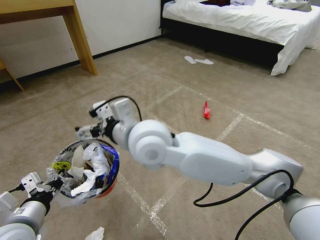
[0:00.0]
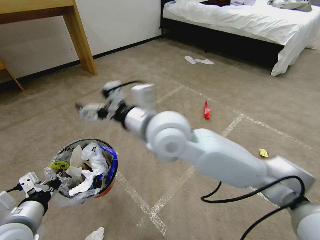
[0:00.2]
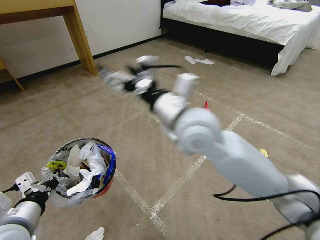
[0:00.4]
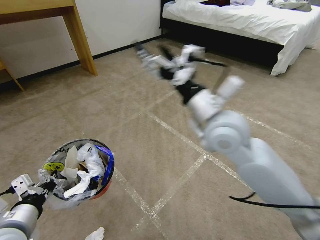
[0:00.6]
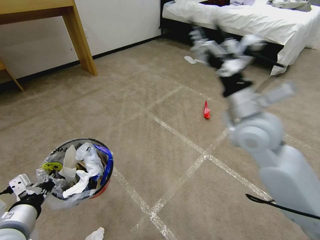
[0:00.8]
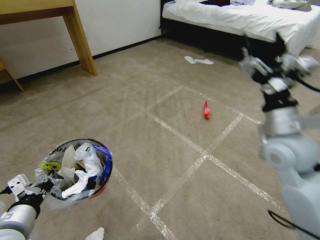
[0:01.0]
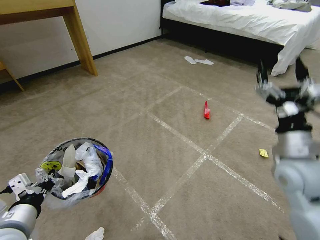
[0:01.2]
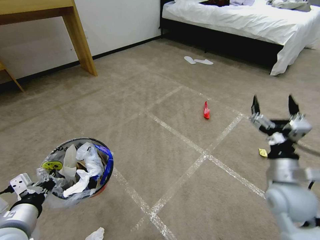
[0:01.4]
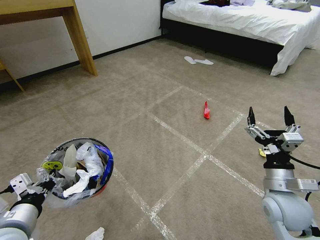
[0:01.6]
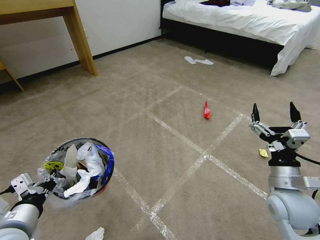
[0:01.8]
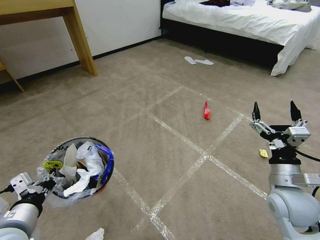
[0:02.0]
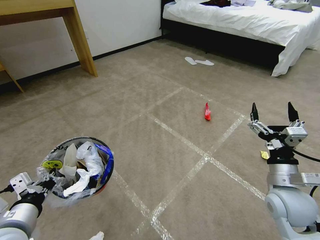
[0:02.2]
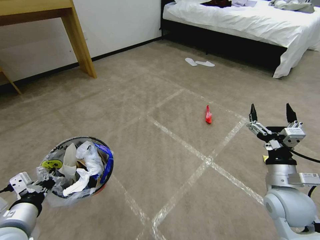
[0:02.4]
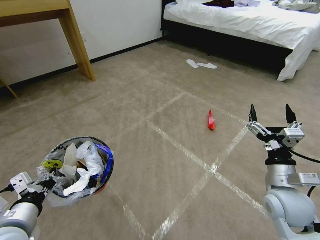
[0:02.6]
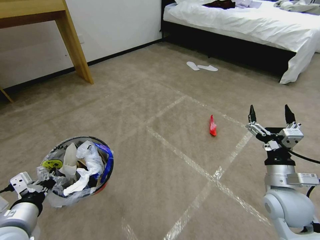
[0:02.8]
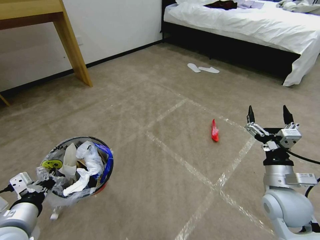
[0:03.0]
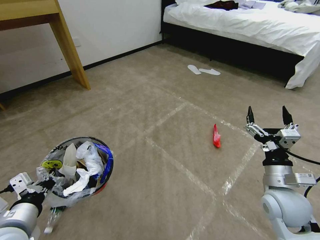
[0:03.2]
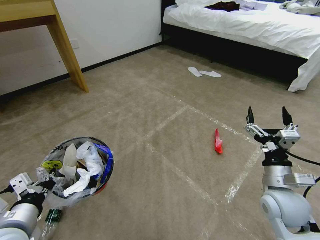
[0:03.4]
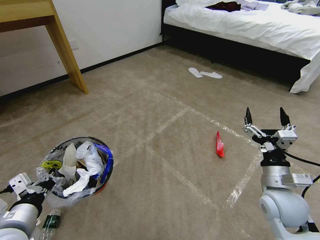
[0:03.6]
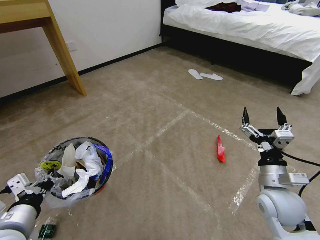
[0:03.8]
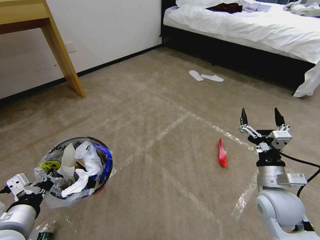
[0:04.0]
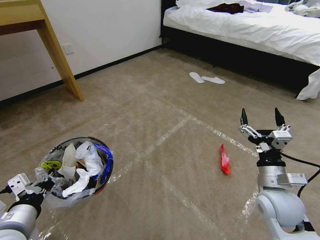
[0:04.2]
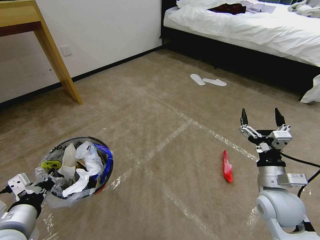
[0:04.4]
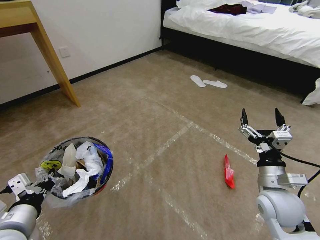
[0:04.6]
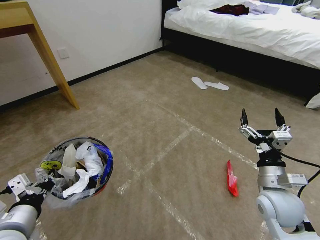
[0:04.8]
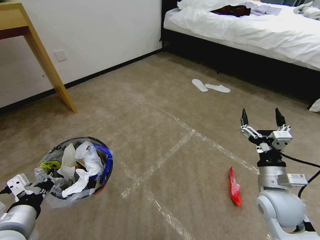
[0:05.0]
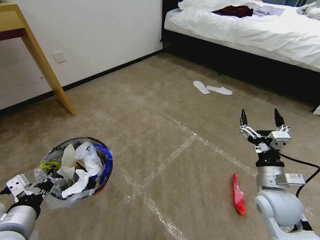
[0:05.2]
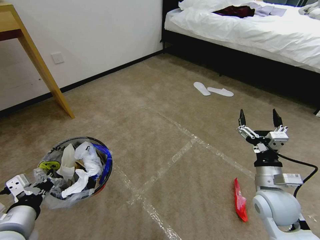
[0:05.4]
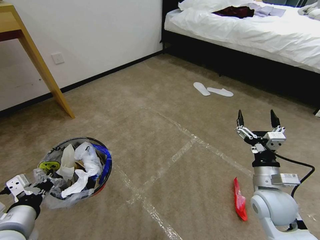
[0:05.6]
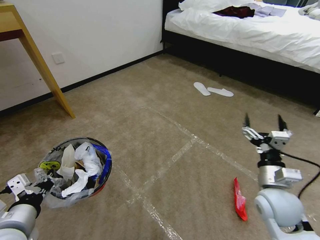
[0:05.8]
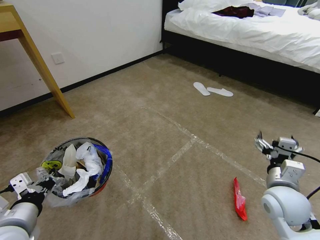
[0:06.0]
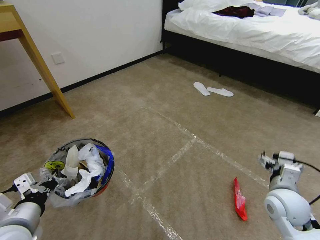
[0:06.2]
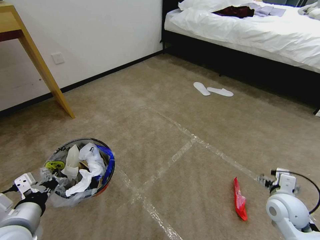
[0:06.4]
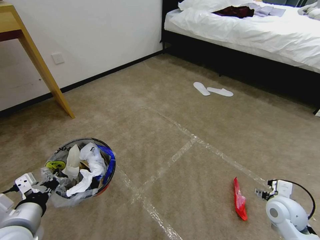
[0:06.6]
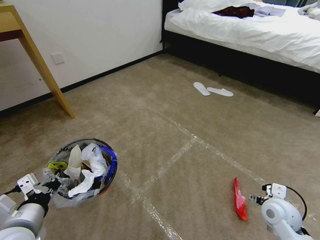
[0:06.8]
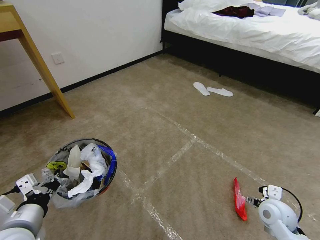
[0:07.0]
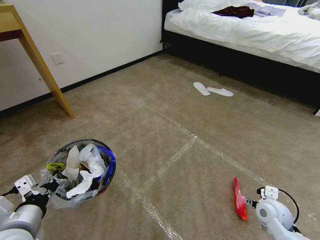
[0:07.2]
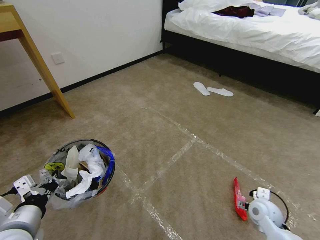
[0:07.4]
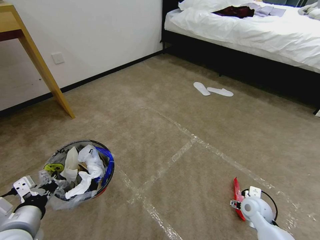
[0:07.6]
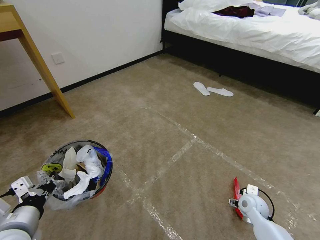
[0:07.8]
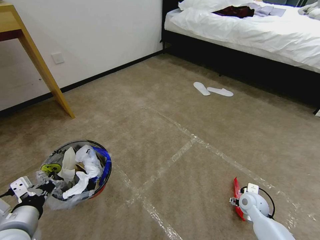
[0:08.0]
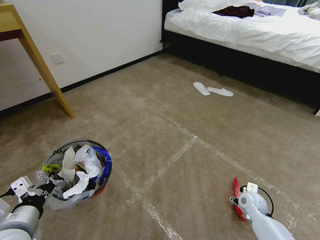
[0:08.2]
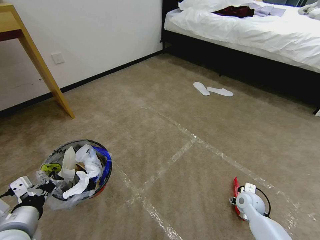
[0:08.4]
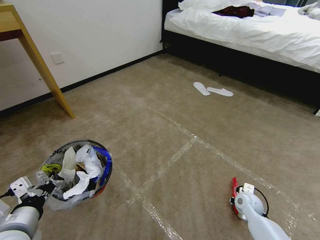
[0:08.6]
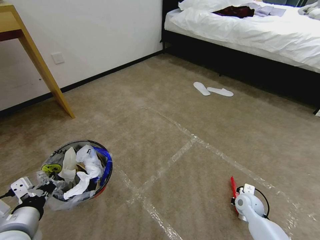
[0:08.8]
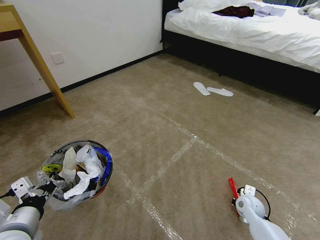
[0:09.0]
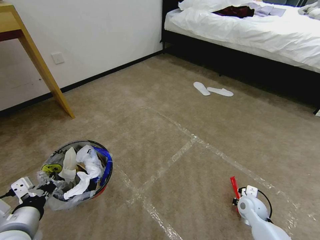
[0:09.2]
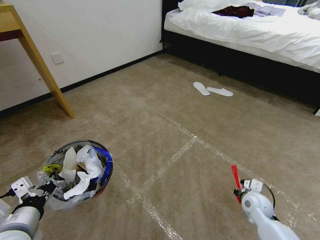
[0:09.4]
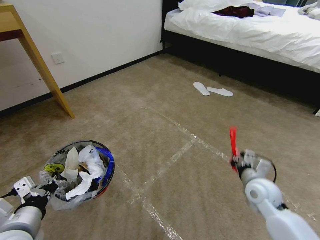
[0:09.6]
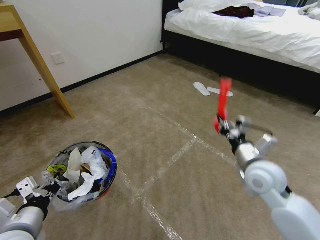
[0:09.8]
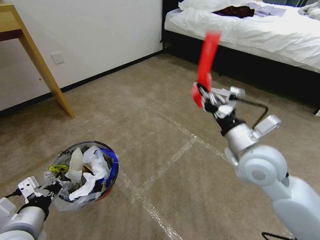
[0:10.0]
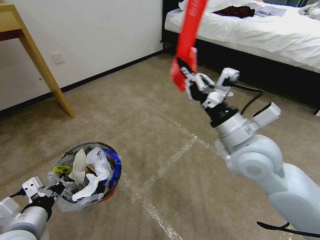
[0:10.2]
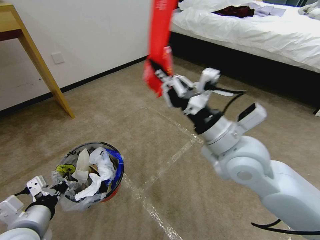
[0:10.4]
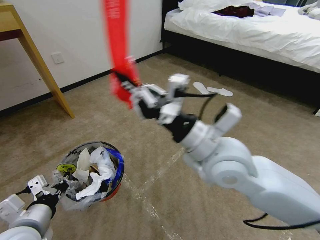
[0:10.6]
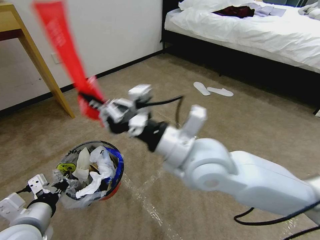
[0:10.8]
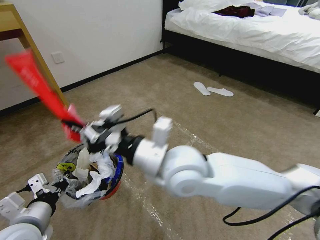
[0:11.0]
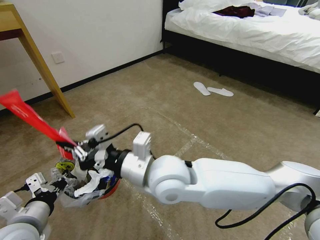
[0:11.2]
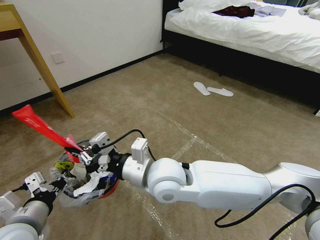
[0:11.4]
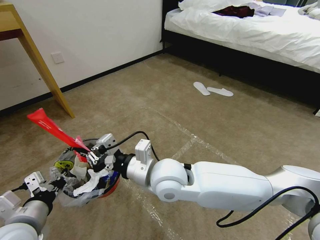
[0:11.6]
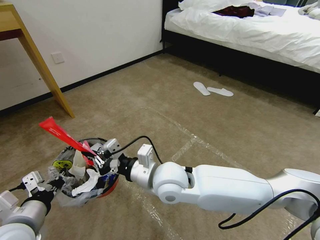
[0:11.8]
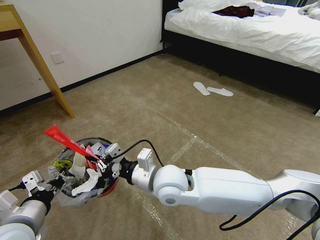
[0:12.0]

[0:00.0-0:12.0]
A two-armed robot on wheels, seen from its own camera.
Task of the whole recording: Pick up the trash bin and place the garbage on the floor into it.
0:00.0 to 0:01.6: The right gripper heads to the right and downward, covering about 40 cm.
0:06.0 to 0:07.6: The right gripper travels downward by about 15 cm.
0:07.6 to 0:09.0: The right gripper closes up.
0:09.0 to 0:10.4: The right gripper heads upward and to the left, covering some 40 cm.
0:10.4 to 0:12.0: The right gripper travels to the left and downward by roughly 20 cm.

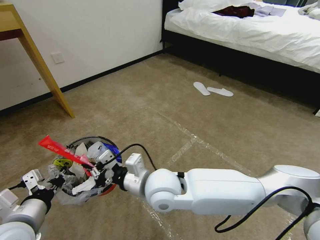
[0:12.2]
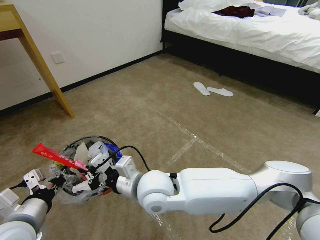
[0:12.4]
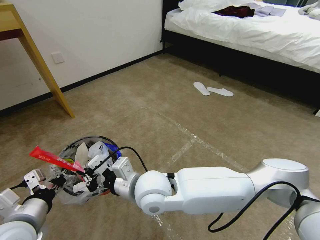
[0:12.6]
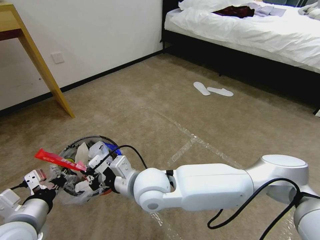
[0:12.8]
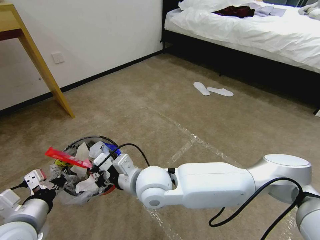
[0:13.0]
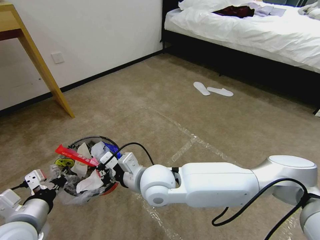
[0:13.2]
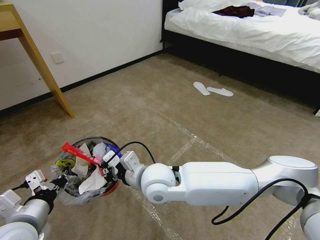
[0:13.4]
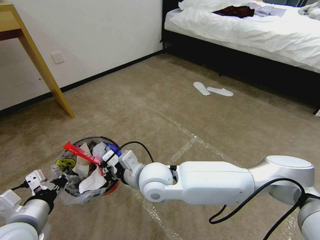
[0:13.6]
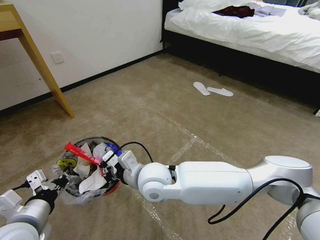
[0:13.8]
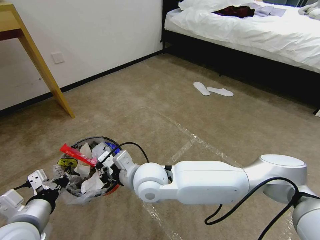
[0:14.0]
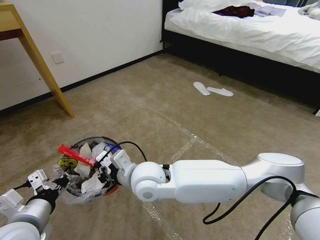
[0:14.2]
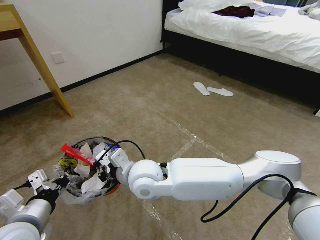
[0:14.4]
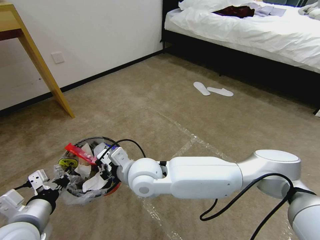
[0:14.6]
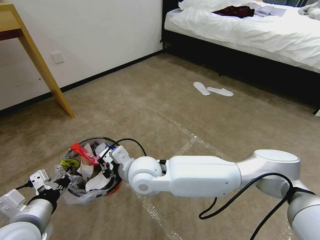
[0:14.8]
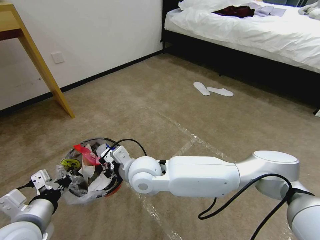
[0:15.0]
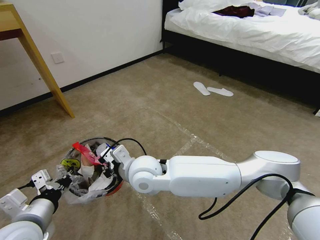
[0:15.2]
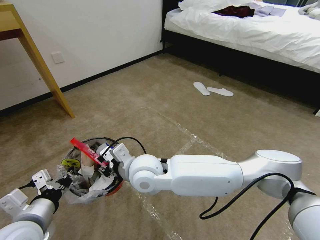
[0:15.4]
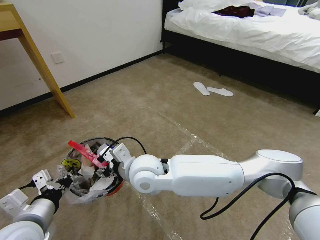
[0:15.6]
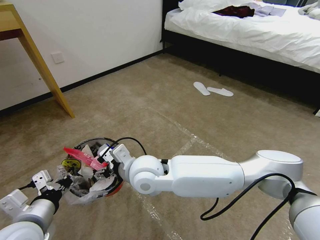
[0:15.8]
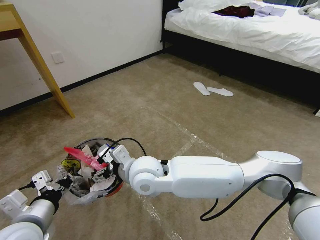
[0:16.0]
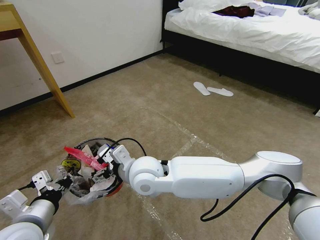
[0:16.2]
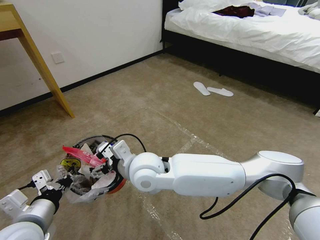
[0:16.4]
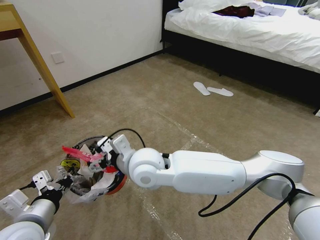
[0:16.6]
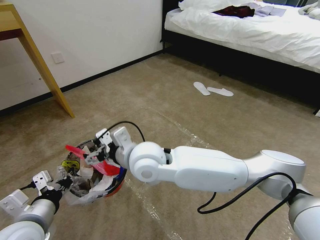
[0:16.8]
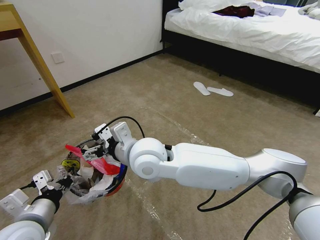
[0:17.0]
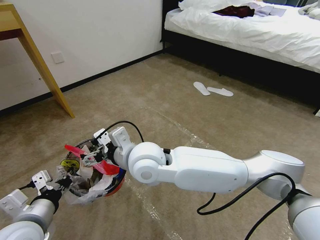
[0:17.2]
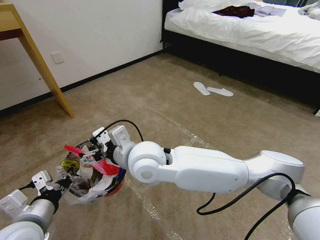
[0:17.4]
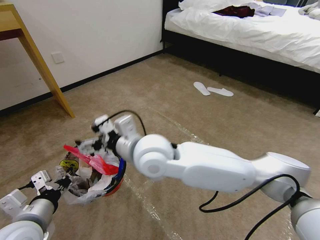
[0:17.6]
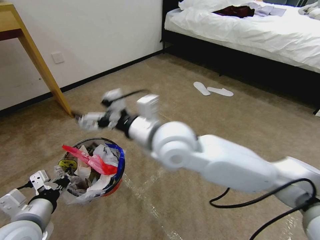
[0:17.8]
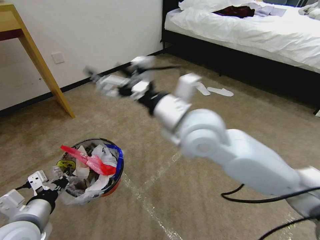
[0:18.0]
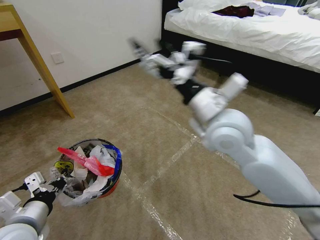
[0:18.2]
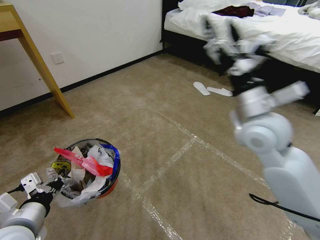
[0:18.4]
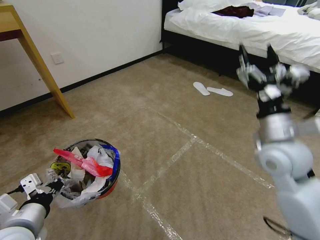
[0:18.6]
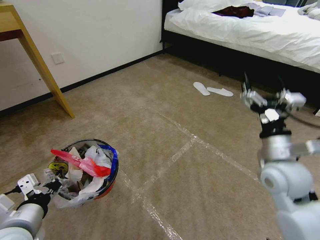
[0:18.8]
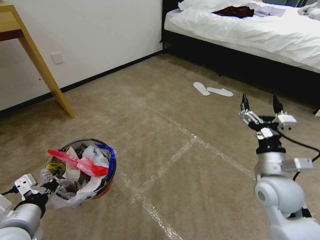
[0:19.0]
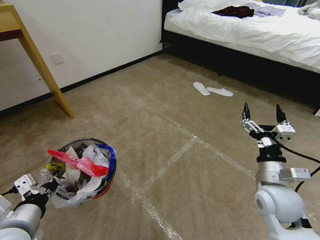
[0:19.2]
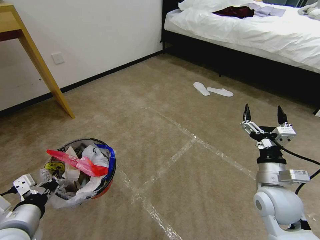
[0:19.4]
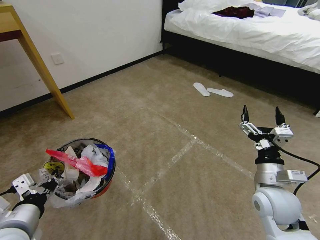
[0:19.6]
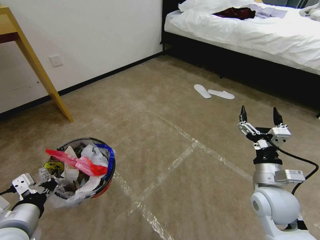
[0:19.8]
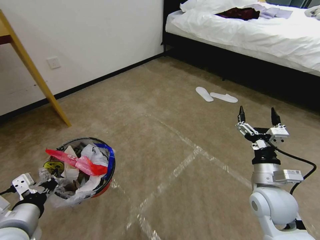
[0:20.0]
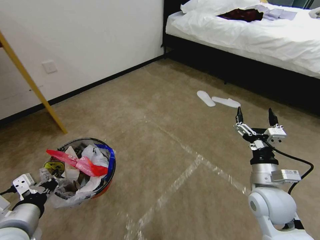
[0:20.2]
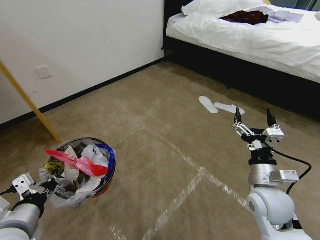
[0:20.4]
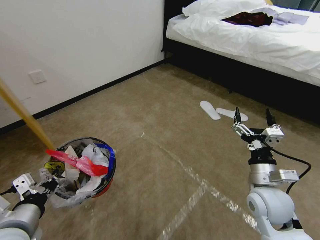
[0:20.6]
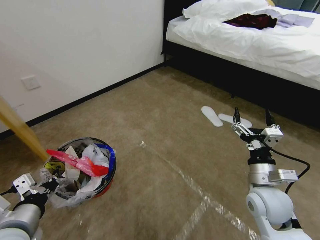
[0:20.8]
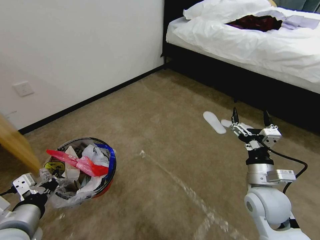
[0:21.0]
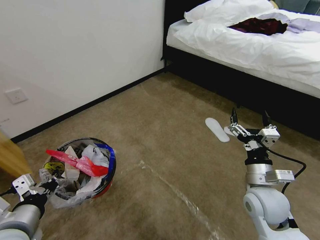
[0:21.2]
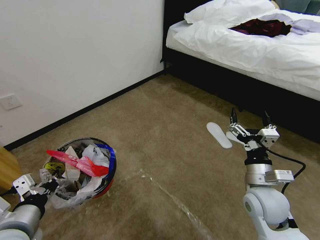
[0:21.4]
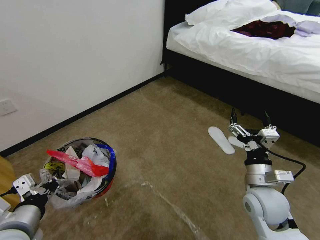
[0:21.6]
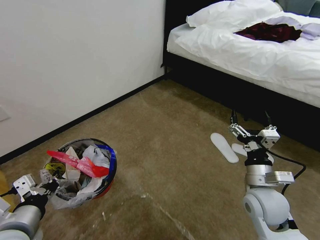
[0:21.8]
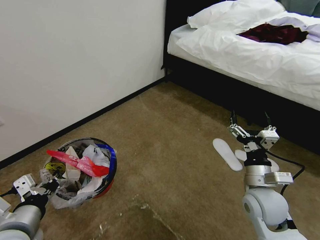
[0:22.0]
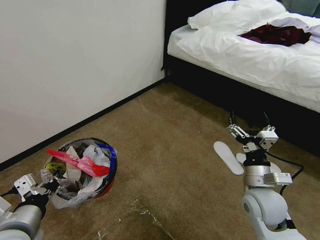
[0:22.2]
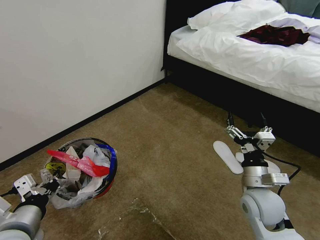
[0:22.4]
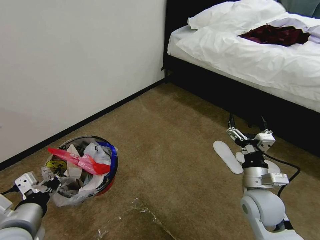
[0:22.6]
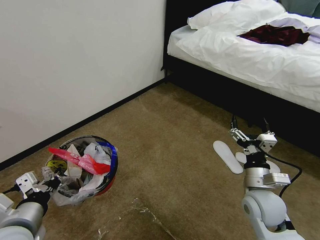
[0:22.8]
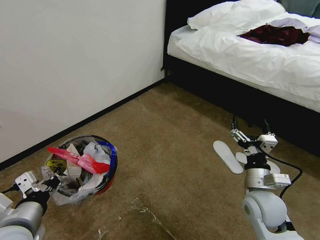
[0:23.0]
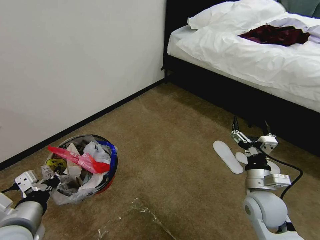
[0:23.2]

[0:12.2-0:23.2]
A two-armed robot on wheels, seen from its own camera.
Task of the whole recording: Pick up the trash bin and place the garbage on the floor into it.
0:12.2 to 0:13.8: The grippers make only small movements.
0:13.8 to 0:15.4: There are only small adjustments of the grippers.
0:15.4 to 0:17.0: The right gripper goes some 5 cm upward, and opens.
0:17.0 to 0:18.4: The right gripper goes roughly 30 cm to the right.
0:18.4 to 0:20.0: The right gripper moves downward and backward, some 20 cm.
